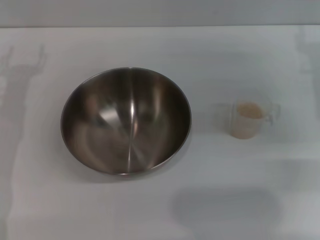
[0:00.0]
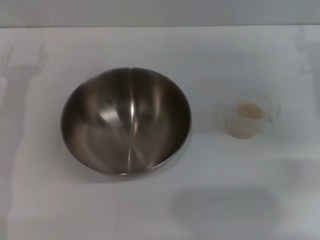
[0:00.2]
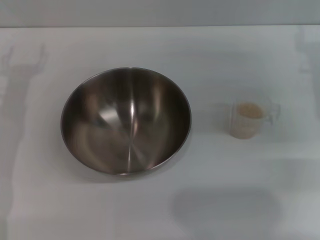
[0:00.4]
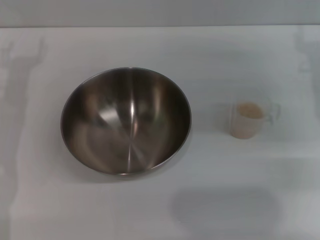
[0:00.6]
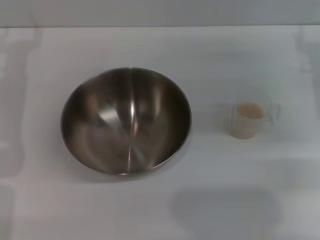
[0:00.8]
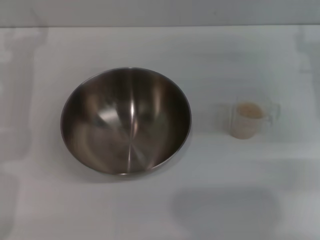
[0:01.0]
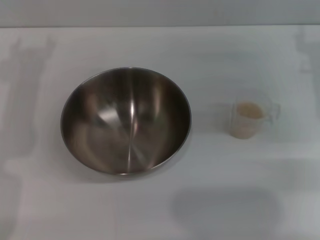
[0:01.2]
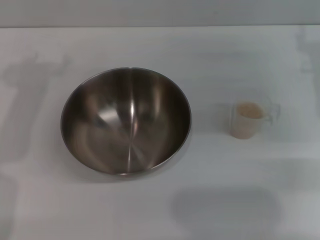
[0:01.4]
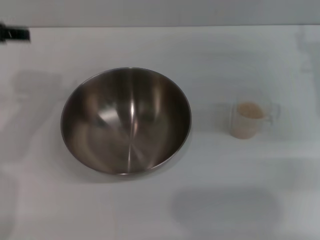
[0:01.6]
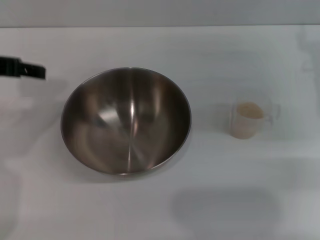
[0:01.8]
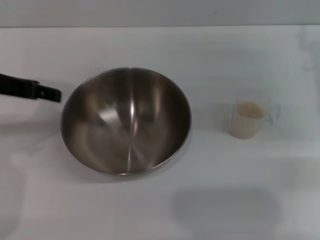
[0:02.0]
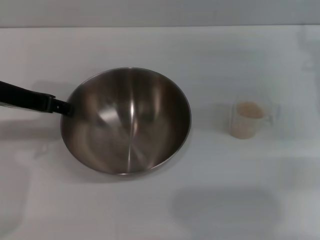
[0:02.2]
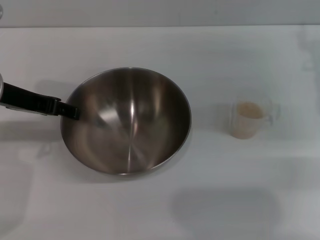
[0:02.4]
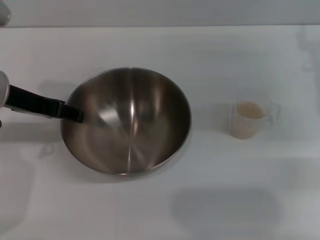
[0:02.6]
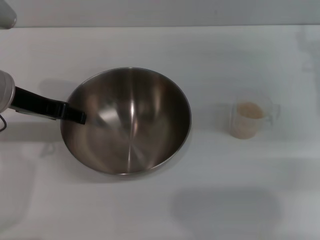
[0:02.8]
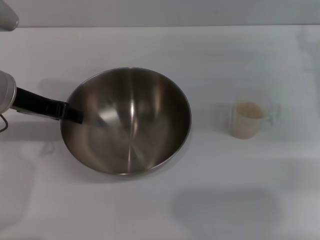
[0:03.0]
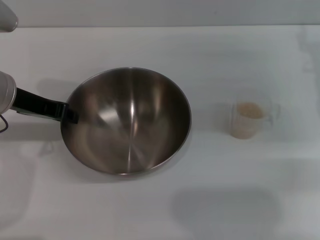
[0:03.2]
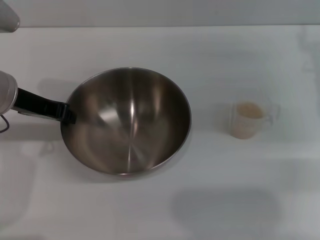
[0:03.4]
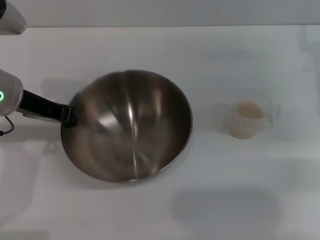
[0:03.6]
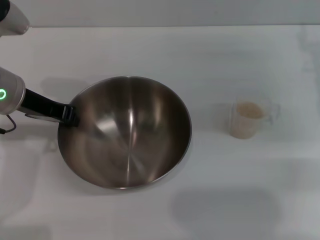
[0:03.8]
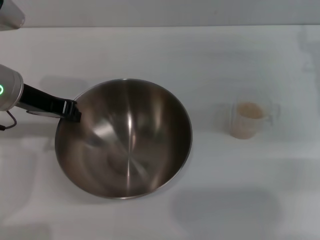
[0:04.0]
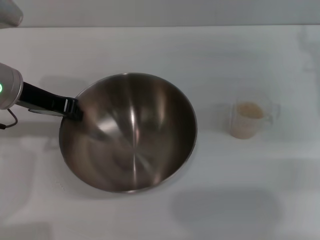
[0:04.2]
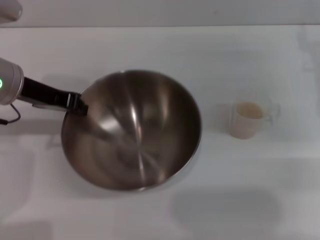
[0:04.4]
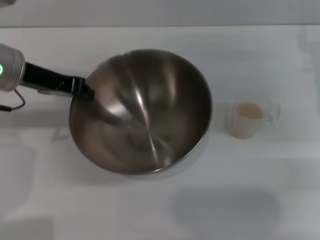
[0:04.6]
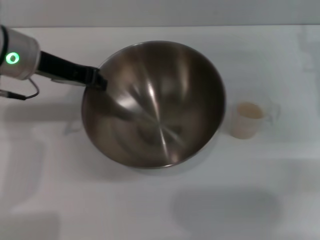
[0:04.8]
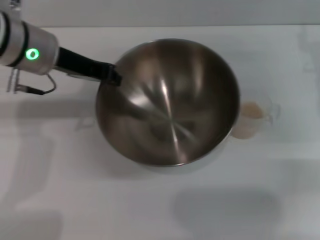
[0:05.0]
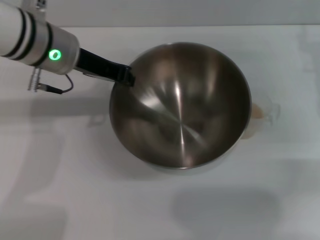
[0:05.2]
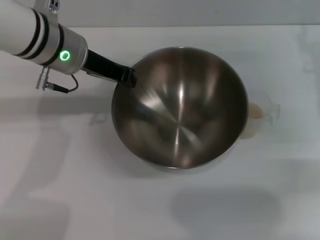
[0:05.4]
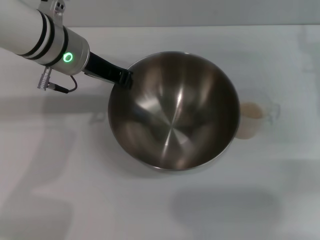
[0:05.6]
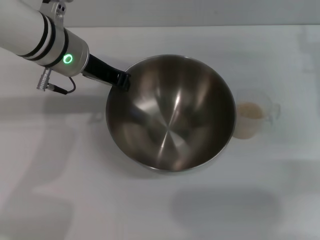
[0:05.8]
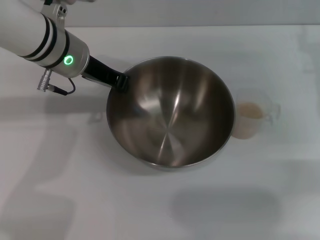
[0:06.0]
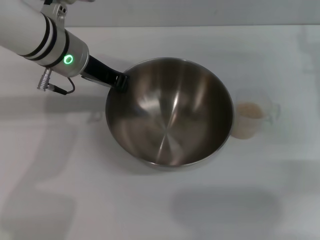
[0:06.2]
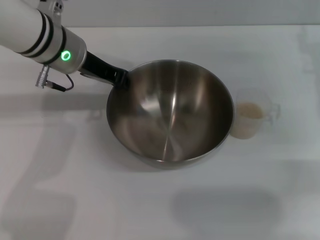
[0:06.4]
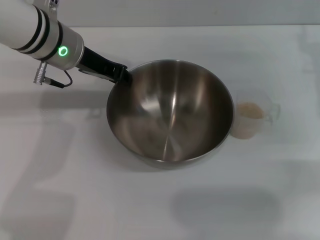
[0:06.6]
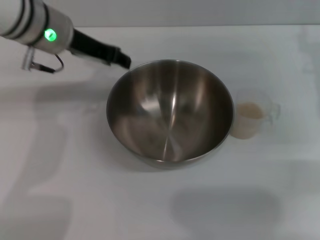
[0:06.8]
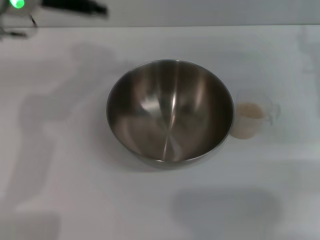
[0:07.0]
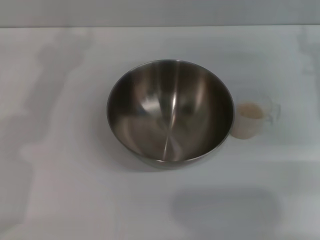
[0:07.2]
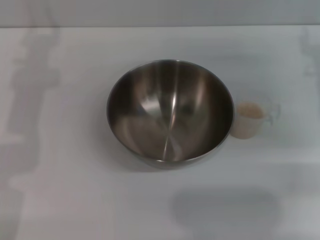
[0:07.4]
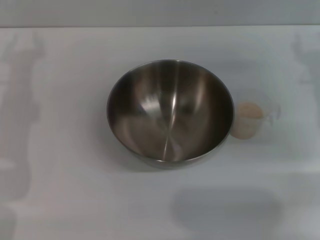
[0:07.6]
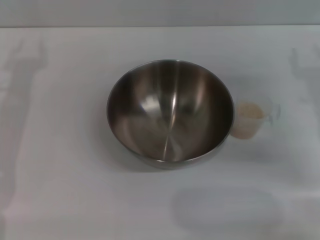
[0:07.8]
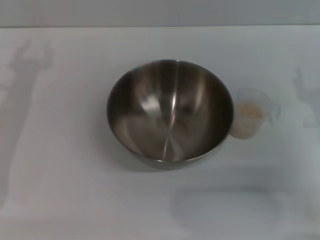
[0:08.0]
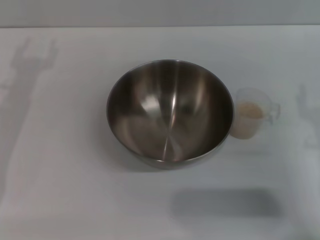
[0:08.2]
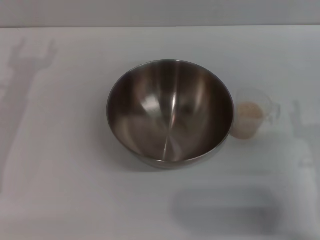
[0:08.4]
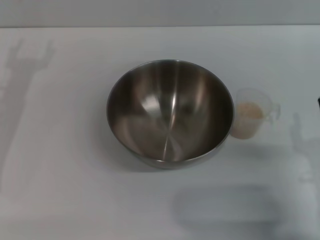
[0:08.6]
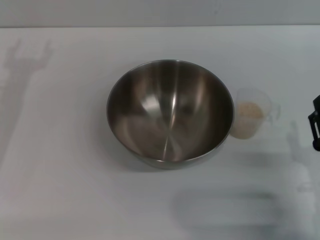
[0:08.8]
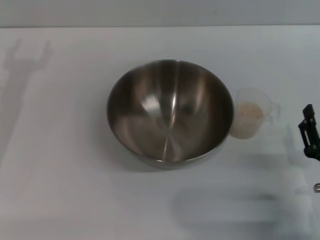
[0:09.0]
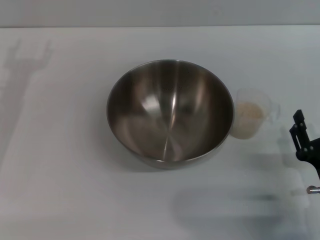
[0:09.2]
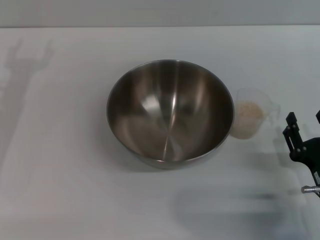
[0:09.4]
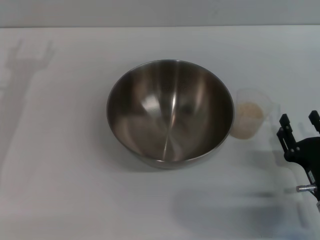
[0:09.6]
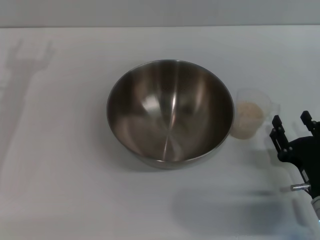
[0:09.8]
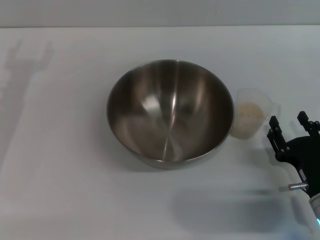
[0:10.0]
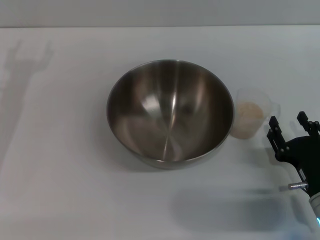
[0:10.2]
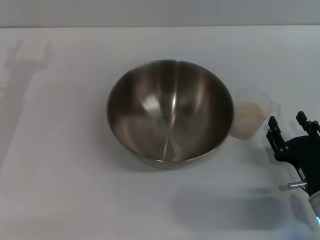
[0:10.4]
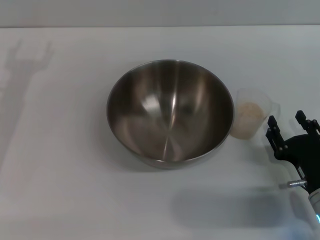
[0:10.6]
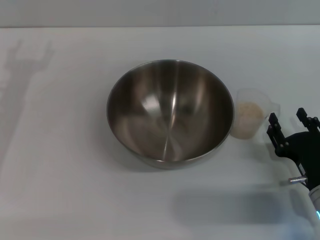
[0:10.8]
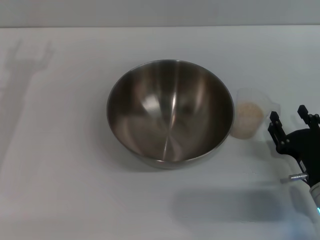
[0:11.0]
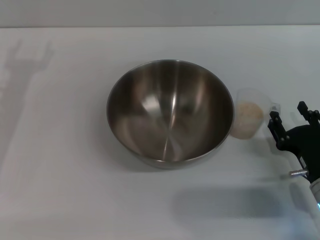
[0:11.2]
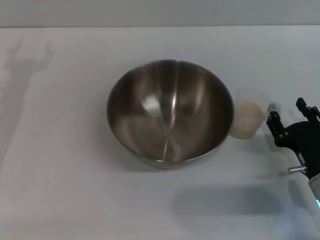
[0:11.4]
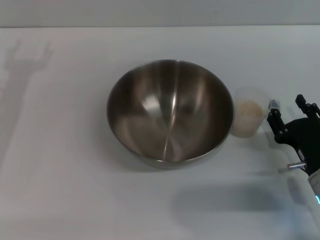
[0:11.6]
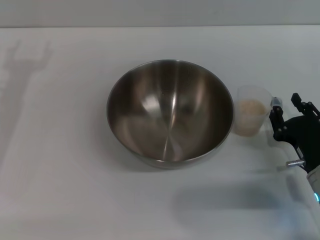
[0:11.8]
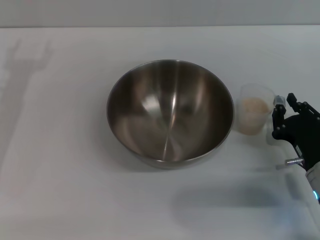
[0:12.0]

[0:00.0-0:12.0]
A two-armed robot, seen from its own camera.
Task of the whole recording: Place the bowl in the middle of the table with one hand and pour the rice from the grain cup into it with the other hand.
Step, 0:00.0 to 0:05.4: Pick up the bowl with the left gripper.
Step, 0:05.6 to 0:06.8: Place the bowl in the center of view with the left gripper.
0:00.0 to 0:01.6: The left gripper heads upward, covering about 15 cm.
0:01.6 to 0:03.0: The left gripper moves downward, some 10 cm.
0:03.0 to 0:04.4: The left gripper closes up.
0:04.4 to 0:06.0: The left gripper moves to the right, about 10 cm.
0:06.0 to 0:07.6: The left gripper goes approximately 15 cm to the left and backward, and opens.
0:07.6 to 0:09.0: The right gripper is displaced backward and downward by approximately 20 cm.
0:09.0 to 0:10.4: The grippers move only a little.
0:10.4 to 0:12.0: The right gripper closes.

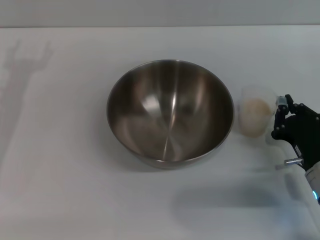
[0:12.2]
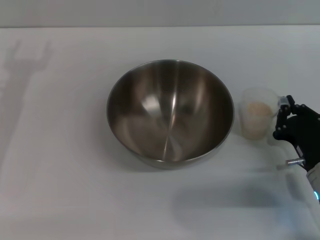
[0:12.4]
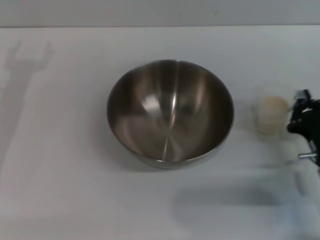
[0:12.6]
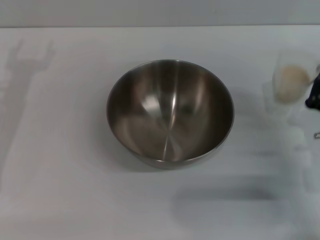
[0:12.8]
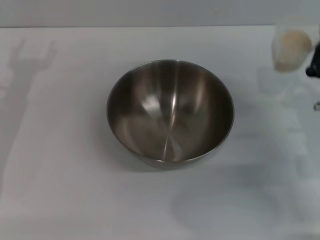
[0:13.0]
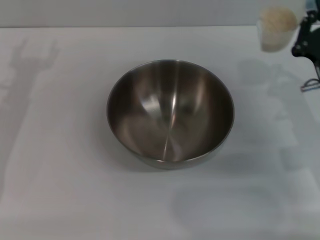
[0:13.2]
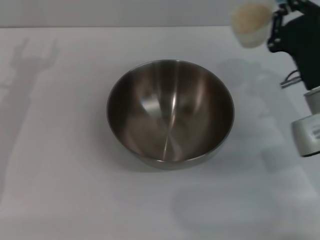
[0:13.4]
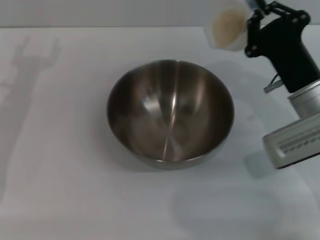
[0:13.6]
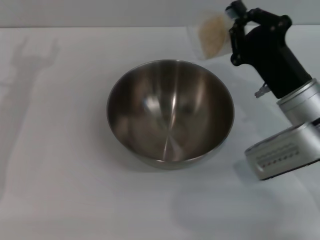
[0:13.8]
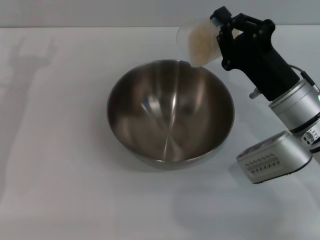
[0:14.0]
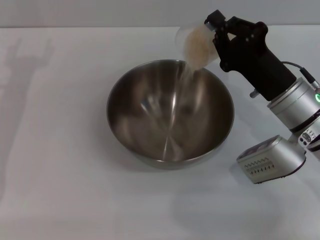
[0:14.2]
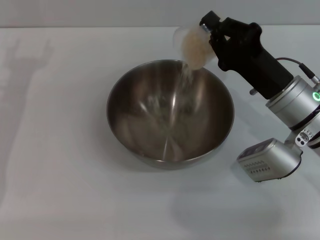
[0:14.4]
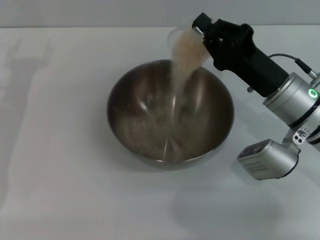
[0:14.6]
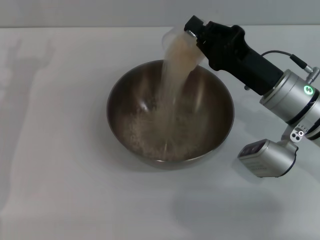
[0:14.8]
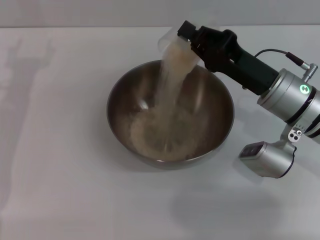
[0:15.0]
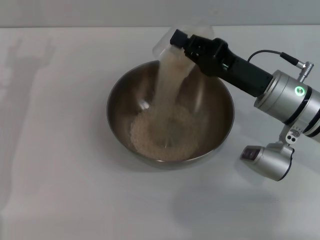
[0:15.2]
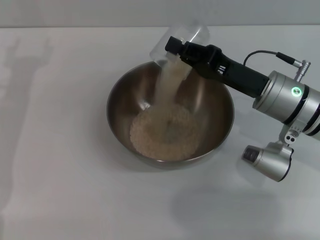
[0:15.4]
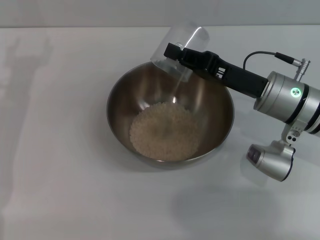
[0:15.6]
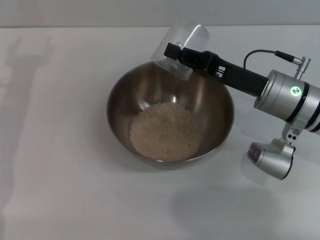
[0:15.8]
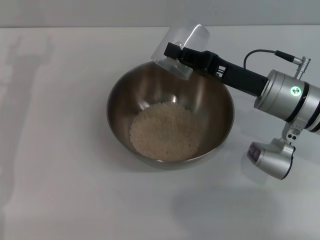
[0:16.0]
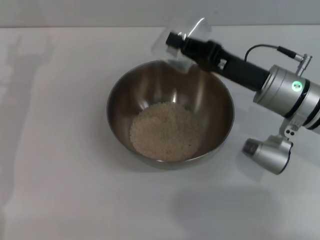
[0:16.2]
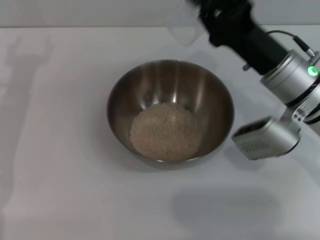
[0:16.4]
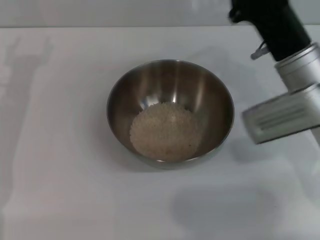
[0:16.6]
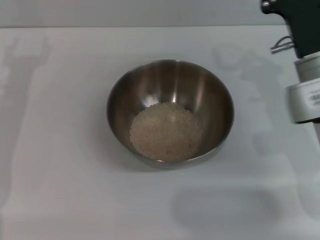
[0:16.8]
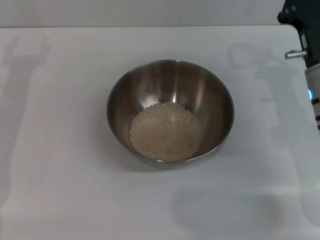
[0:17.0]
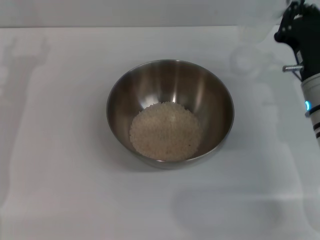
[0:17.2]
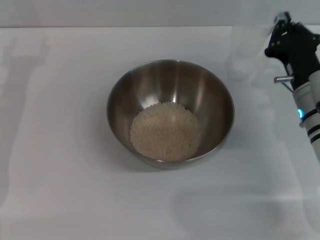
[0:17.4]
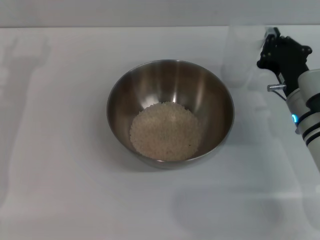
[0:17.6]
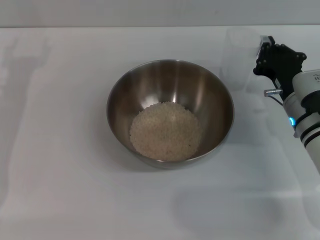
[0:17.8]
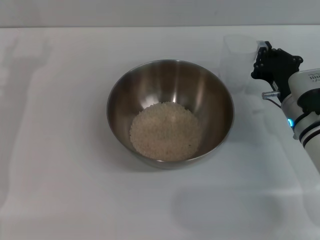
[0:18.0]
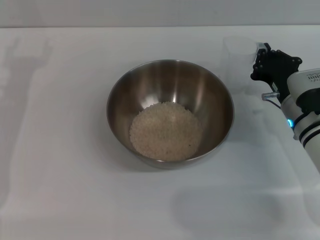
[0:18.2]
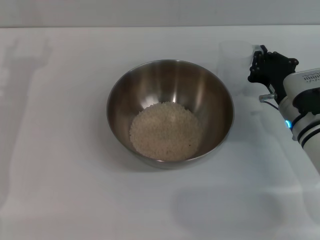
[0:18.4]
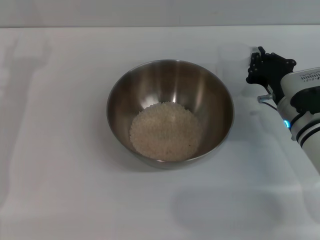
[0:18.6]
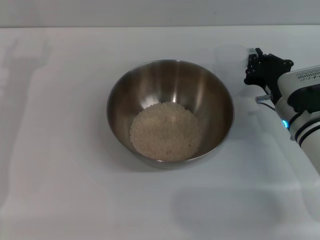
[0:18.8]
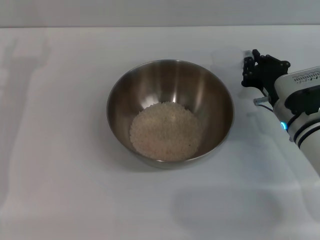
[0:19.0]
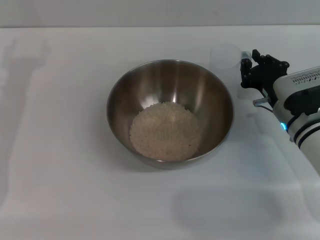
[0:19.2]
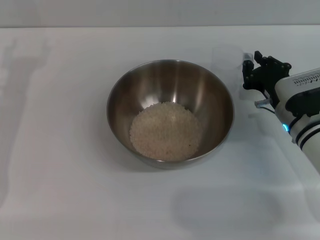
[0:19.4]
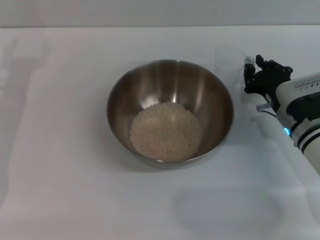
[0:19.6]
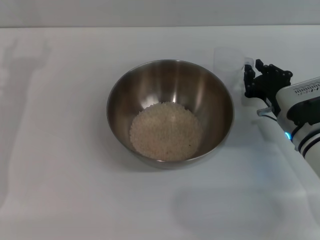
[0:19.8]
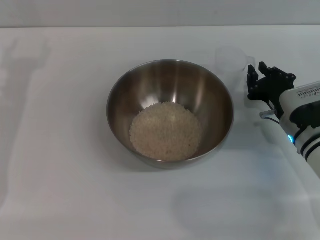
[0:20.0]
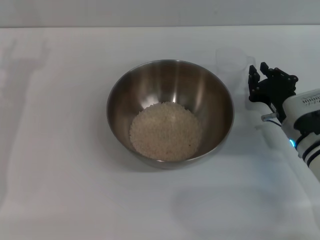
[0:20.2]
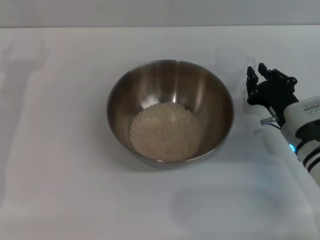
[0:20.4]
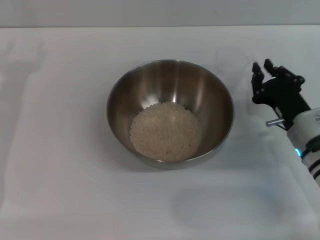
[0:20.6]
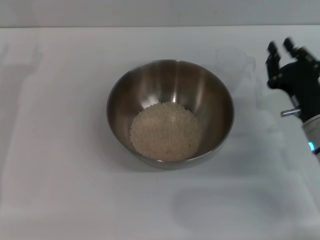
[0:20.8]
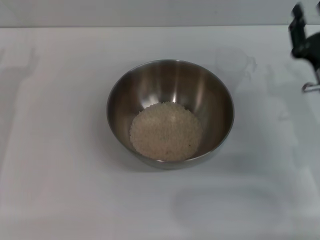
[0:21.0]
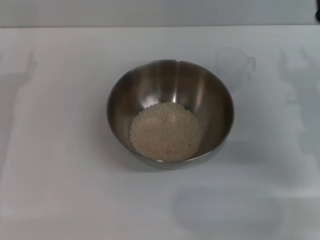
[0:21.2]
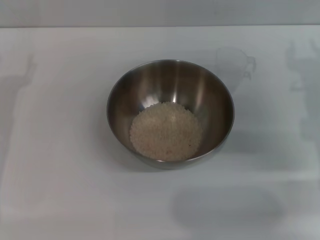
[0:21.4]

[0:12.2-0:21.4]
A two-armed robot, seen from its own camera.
Task of the whole recording: Place the bowl in the middle of the table with one hand and pour the rice from the grain cup into it with the other hand.
Step, 0:13.0 to 0:16.2: Pour the rice from the cup into the bowl with the right gripper.
Step, 0:16.4 to 0:20.2: Place the cup on the table with the right gripper.
0:12.2 to 0:13.8: The right gripper moves upward and forward, approximately 10 cm, and closes.
0:16.8 to 0:18.4: The right gripper shifts about 10 cm downward.
0:18.4 to 0:19.8: The grippers make only small movements.
0:19.8 to 0:21.4: The right gripper travels upward by some 10 cm, and opens up.
